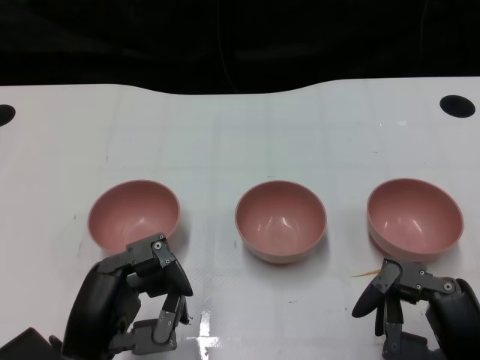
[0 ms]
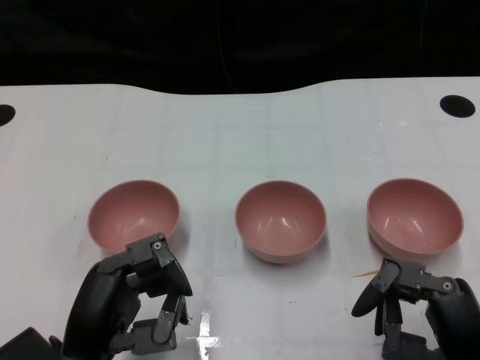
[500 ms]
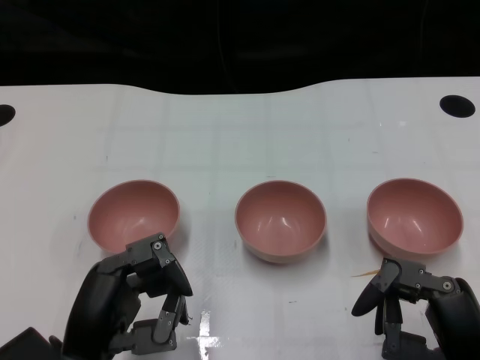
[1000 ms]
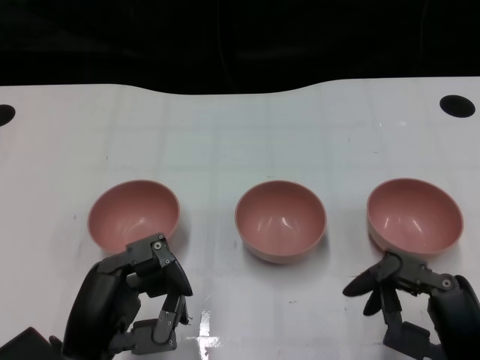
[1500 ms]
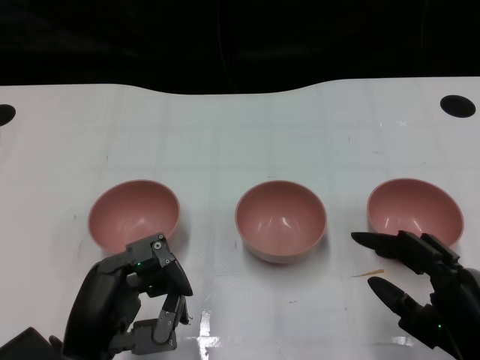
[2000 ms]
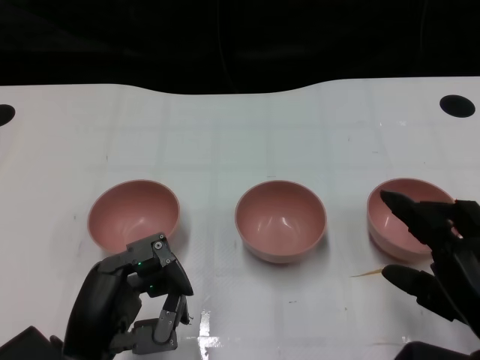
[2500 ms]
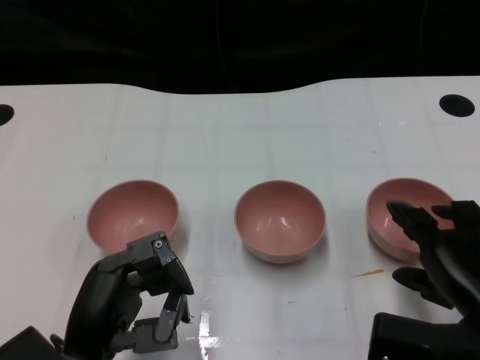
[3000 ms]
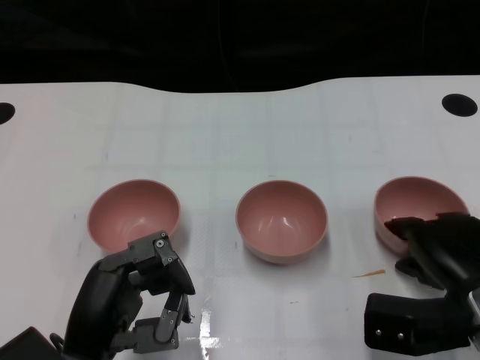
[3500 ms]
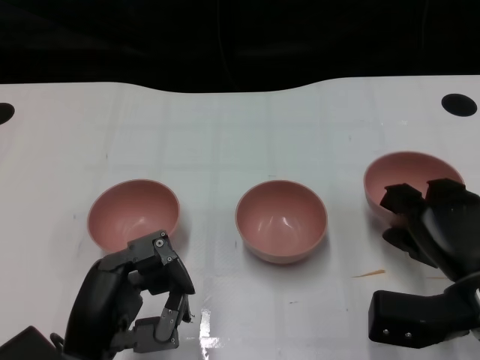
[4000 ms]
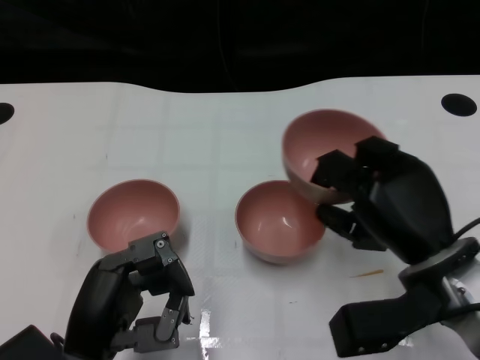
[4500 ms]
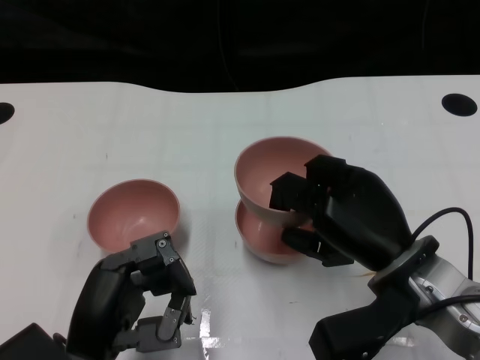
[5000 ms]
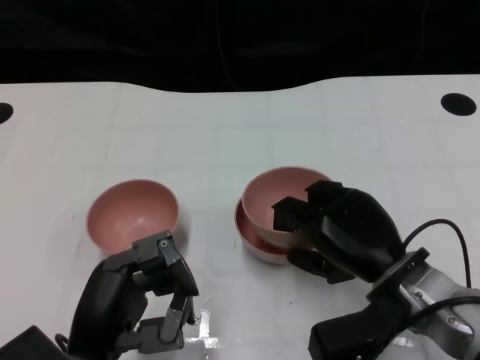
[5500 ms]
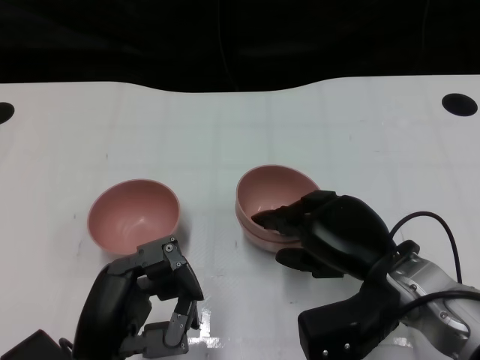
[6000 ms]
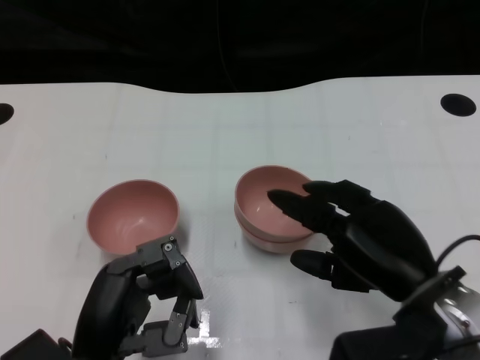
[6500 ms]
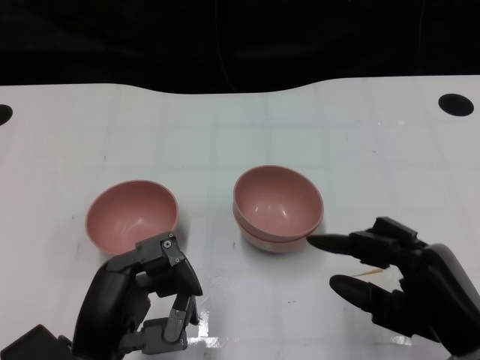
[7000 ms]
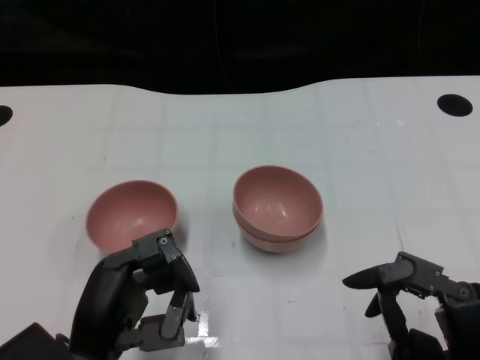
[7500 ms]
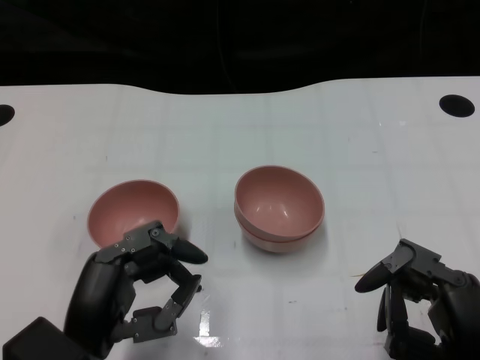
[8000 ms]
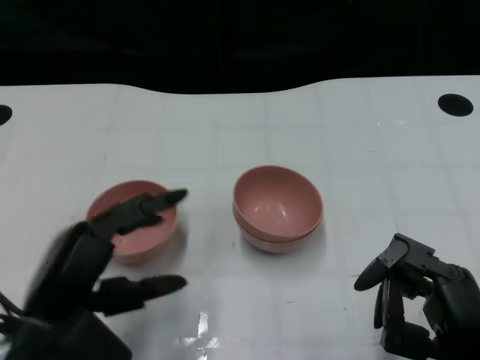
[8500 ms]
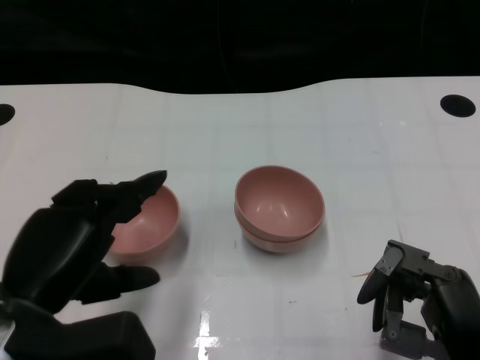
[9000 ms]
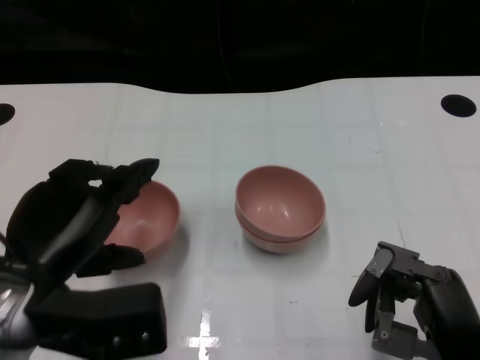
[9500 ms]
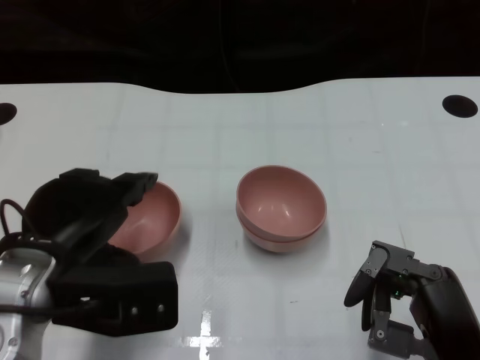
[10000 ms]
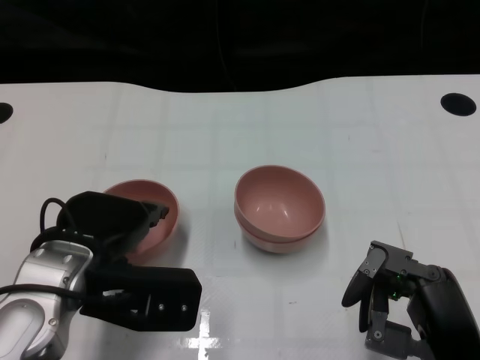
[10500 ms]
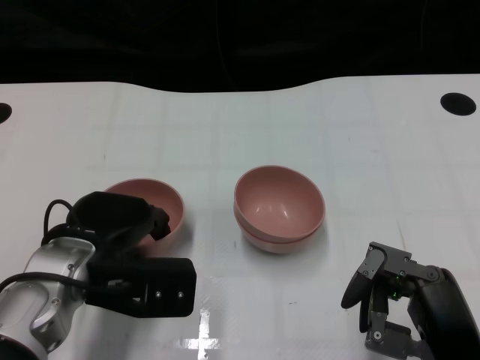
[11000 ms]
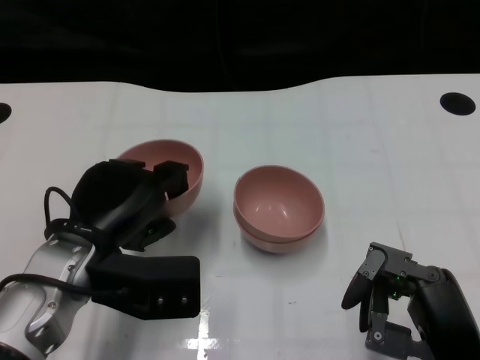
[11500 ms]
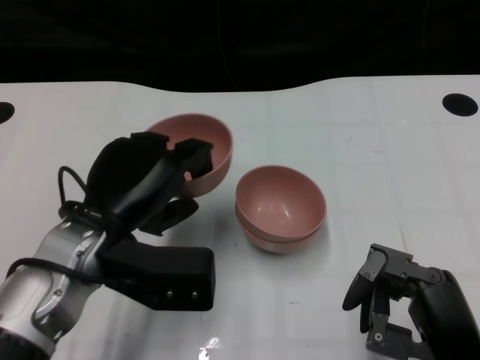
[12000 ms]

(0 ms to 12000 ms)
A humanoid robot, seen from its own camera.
Task of the whole recording: Pick up the bowl on one side of the table and place it on top of the middle bowl, then pick up the bowl on the other side of the table and place it on top of the middle bowls.
Step, 1500 ms - 3500 ms: Grasp the bowl on the right with the right gripper.
Step, 4500 ms - 6500 ms: Place the bowl on the right onto the bowl in the middle with right gripper.
Step, 7000 ms - 11000 ms: Grasp the bowl on the left with the left gripper.
2000 ms - 4000 ms: The right hand is displaced forward by about 10 cm.
4000 ms - 6000 ms: The right hand shifts some 10 cm to the left.
6000 ms - 8000 ms: The right hand shifts roughly 15 cm backward and to the right.
8000 ms - 10000 ms: The left hand goes some 10 cm upward and forward.
10000 ms - 12000 ms: The left hand shifts by about 5 cm.

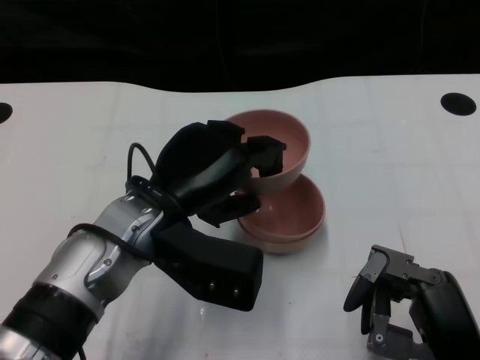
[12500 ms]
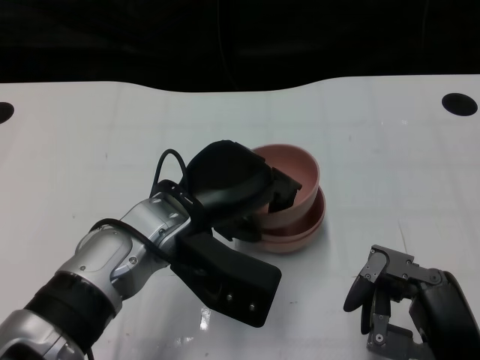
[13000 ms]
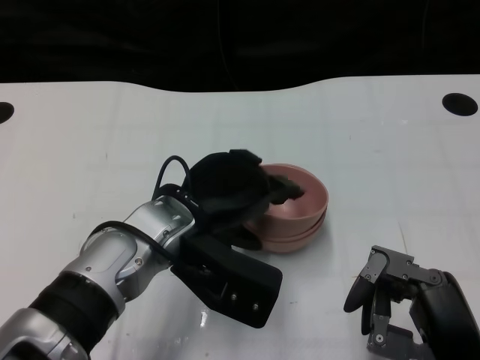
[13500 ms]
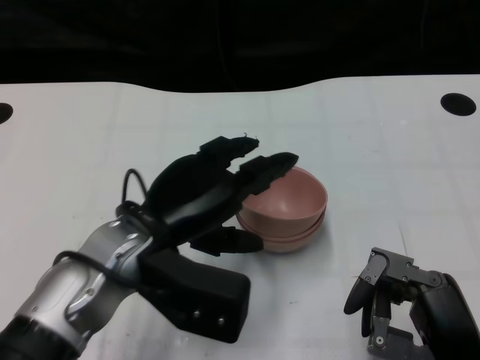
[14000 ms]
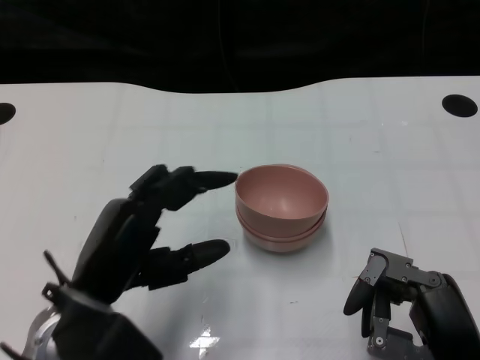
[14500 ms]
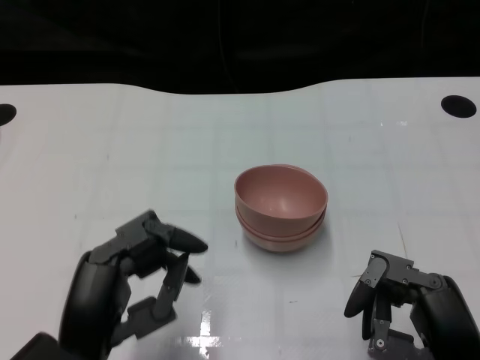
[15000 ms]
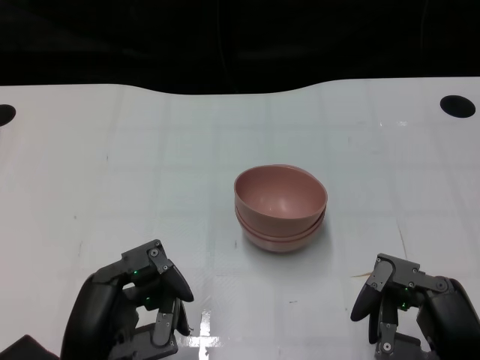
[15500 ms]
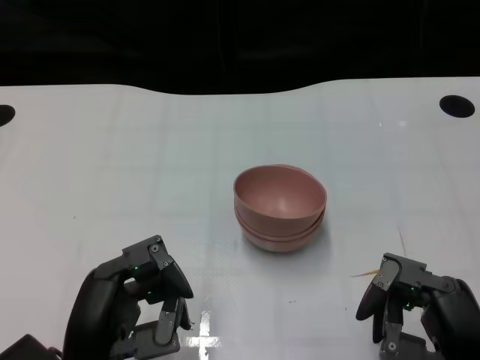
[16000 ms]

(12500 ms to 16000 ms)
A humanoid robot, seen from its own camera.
Task of the whole recording: Pick up the bowl on one side of the table and place it on top of the middle bowl, then pick up the bowl on the other side of the table and place it on top of the middle bowls.
Step, 12500 ms - 14000 ms: Place the bowl on the left onto the bowl in the middle with left gripper.
12500 ms - 14500 ms: The left hand heads backward and to the left, covering about 10 cm.
14500 ms - 16000 ms: The left hand travels backward by roughly 5 cm.

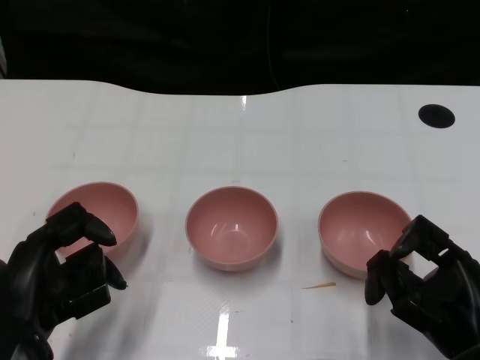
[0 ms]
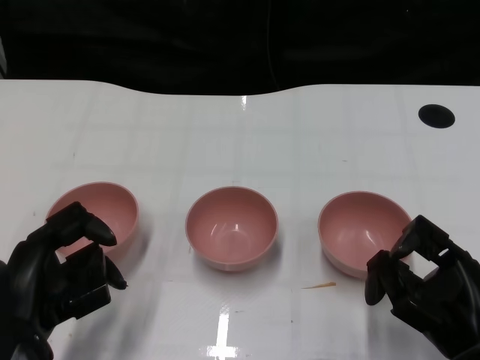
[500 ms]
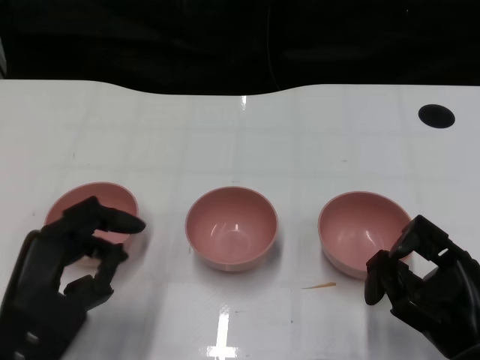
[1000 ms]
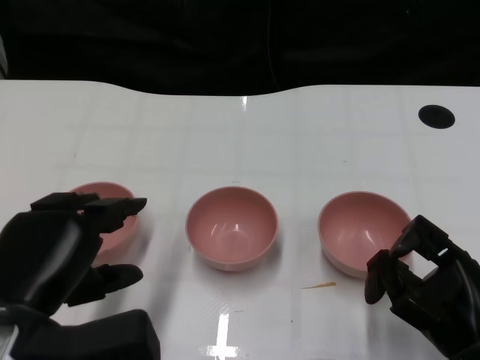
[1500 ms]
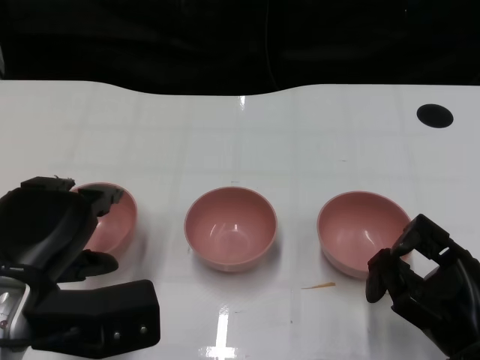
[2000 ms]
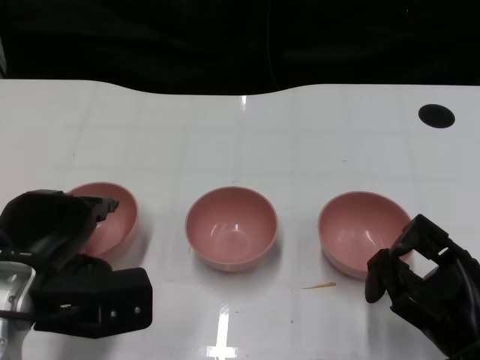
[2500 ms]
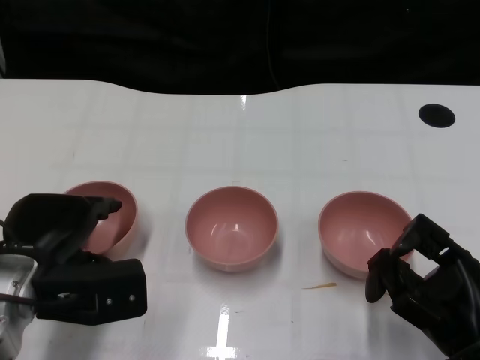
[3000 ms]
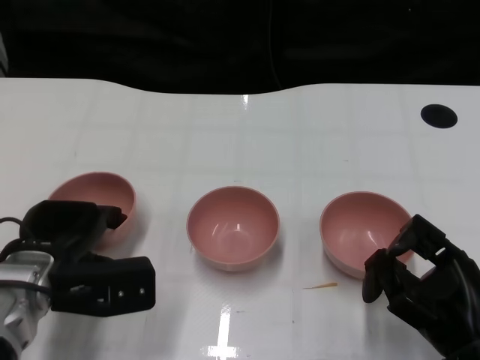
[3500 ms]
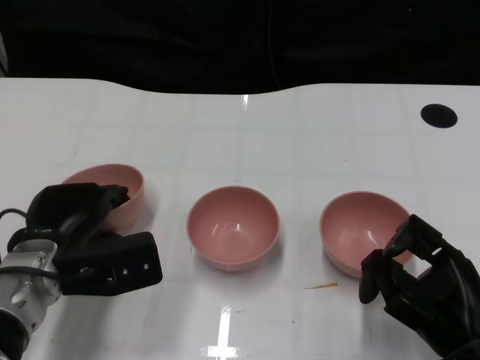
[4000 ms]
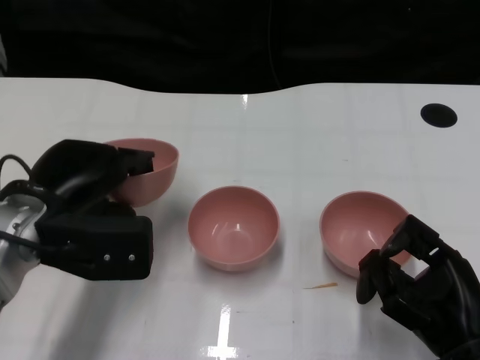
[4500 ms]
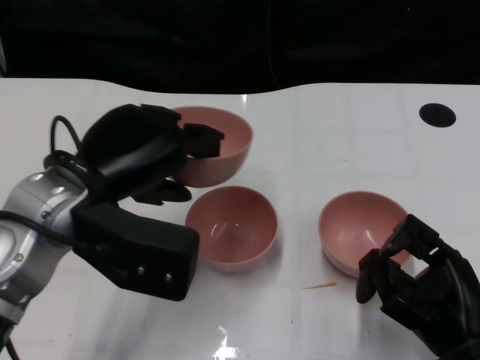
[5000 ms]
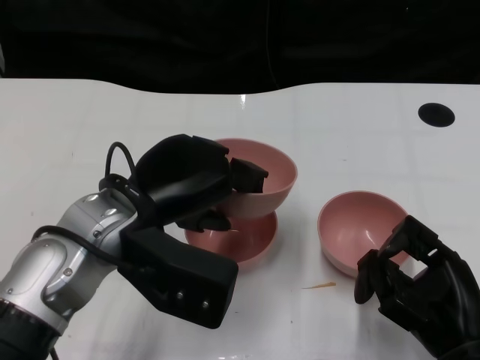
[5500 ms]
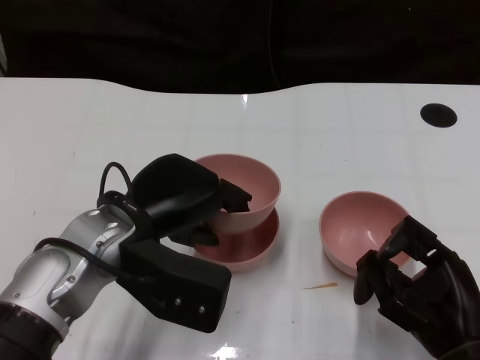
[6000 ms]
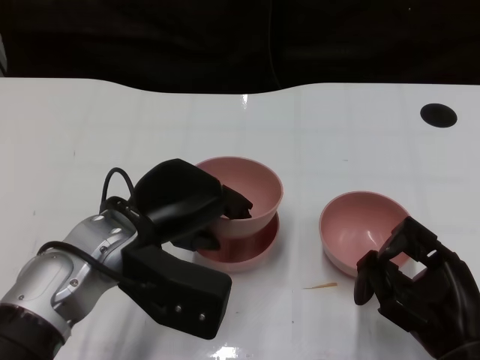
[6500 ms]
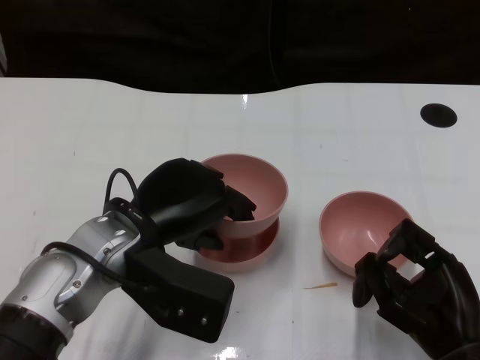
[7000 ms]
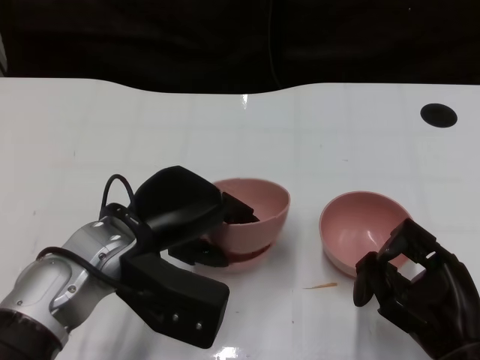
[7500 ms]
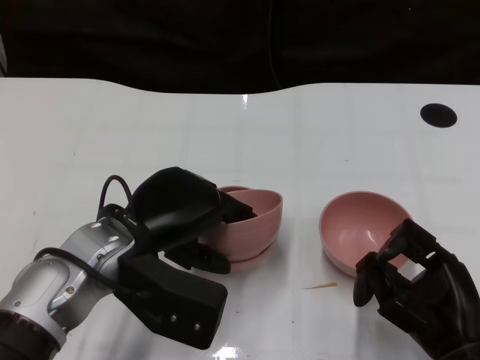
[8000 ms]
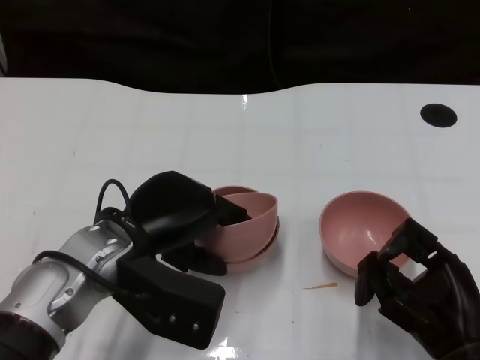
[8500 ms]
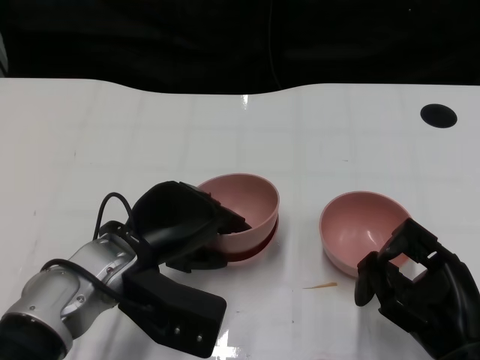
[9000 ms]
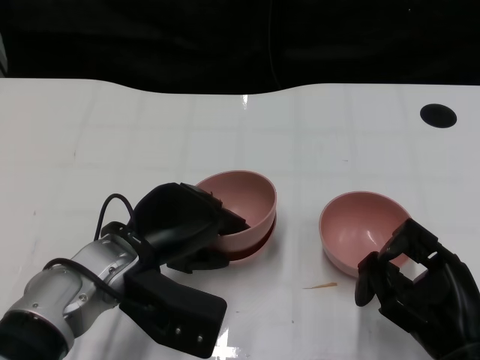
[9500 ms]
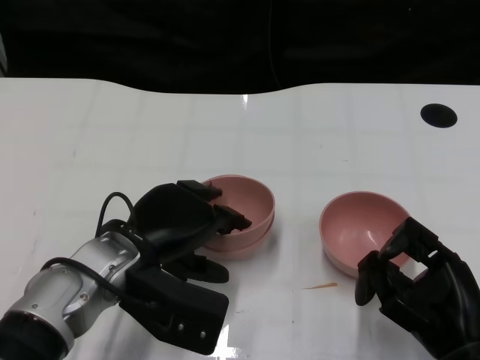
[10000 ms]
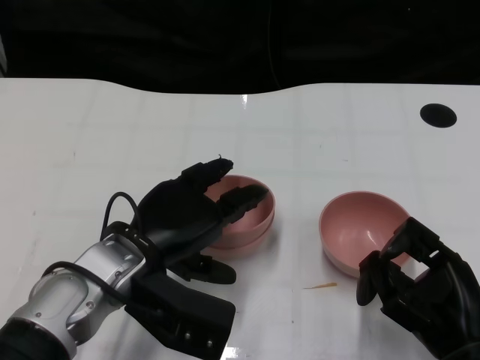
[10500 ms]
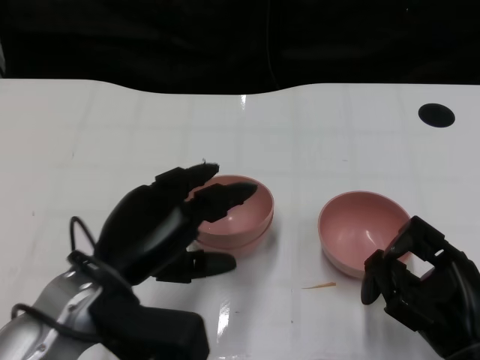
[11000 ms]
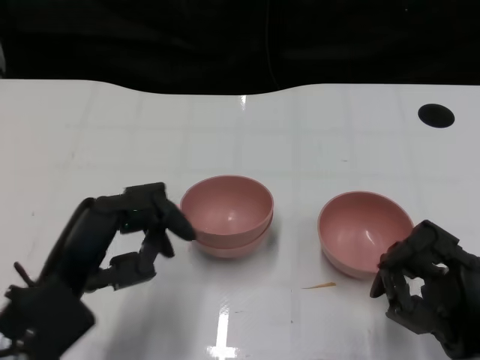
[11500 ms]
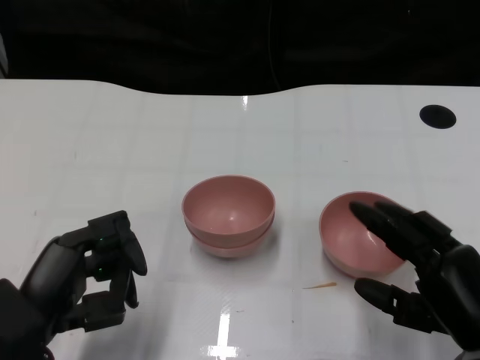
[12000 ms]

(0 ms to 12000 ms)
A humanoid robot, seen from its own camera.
Task of the whole recording: Pick up the bowl on one side of the table and place it on top of the middle bowl, then pick up the bowl on the other side of the table and place it on top of the middle bowls.
Step, 1000 ms - 4000 ms: Grasp the bowl on the left with the left gripper.
Step, 4500 ms - 10500 ms: Place the bowl on the left onto the bowl in the middle with left gripper.
2000 ms - 4000 ms: The left hand heads forward and downward, covering about 10 cm.
4000 ms - 6000 ms: The left hand shifts approximately 10 cm to the right and upward.
6000 ms - 8000 ms: Both hands stay put.
8000 ms - 10000 ms: The hands move only a little.
10000 ms - 12000 ms: The left hand heads backward and to the left, covering approximately 15 cm.
